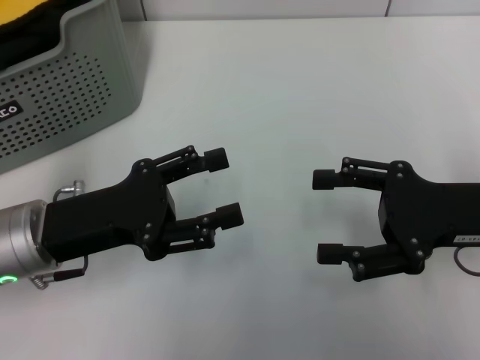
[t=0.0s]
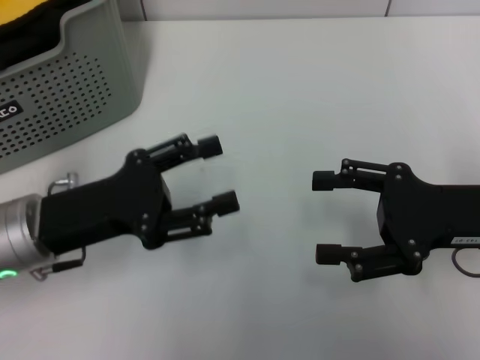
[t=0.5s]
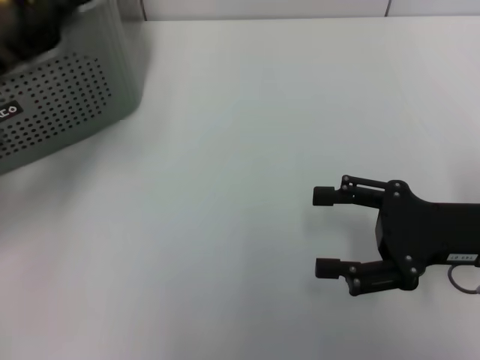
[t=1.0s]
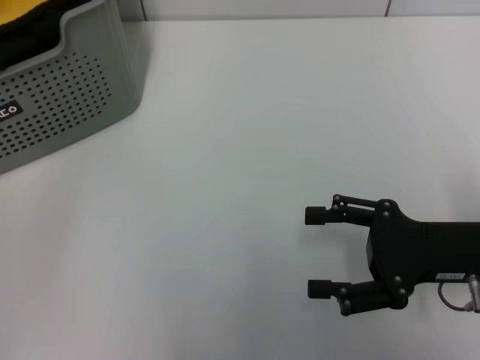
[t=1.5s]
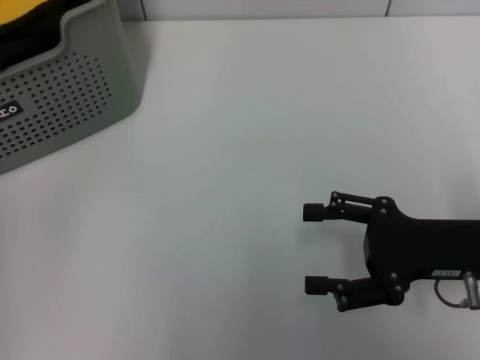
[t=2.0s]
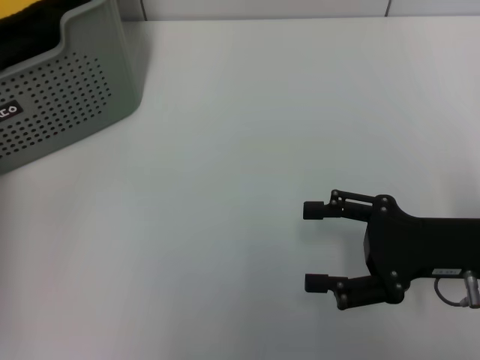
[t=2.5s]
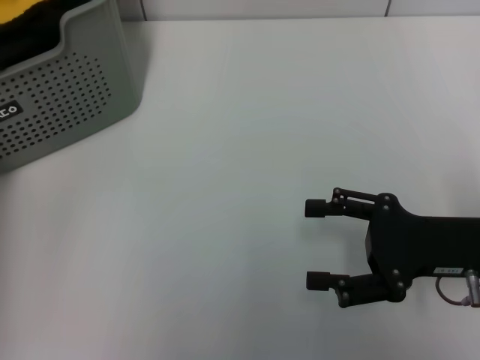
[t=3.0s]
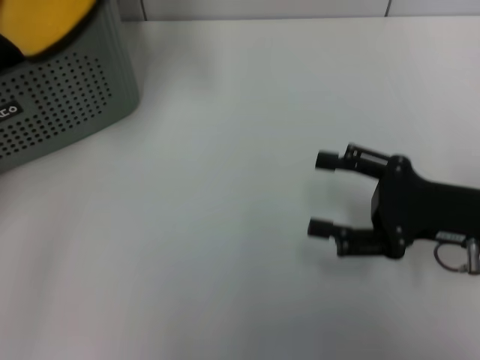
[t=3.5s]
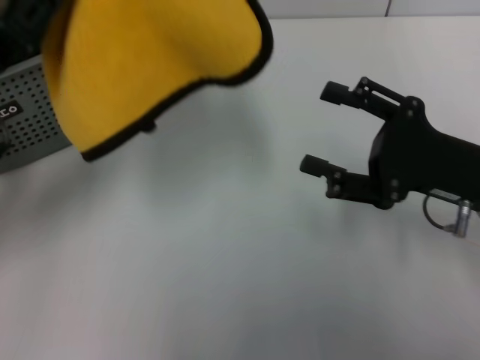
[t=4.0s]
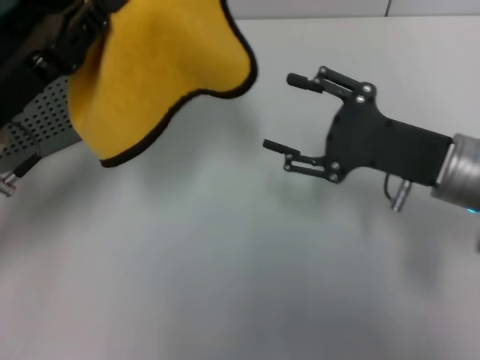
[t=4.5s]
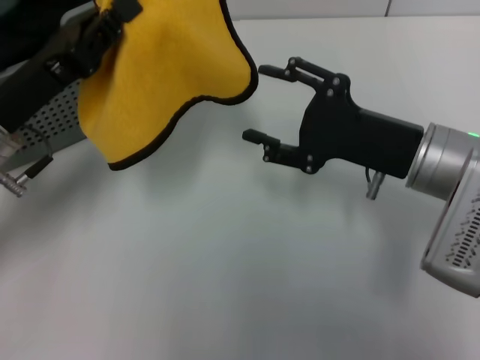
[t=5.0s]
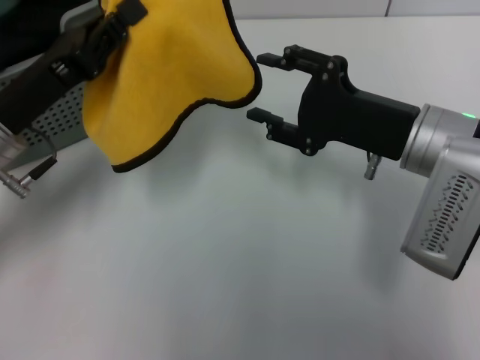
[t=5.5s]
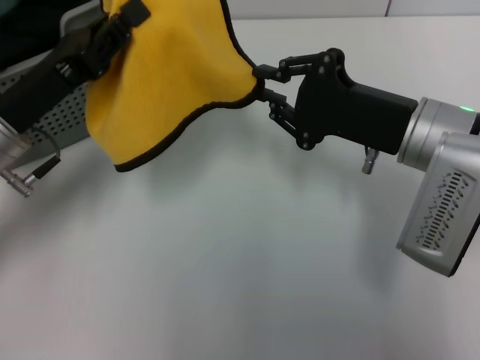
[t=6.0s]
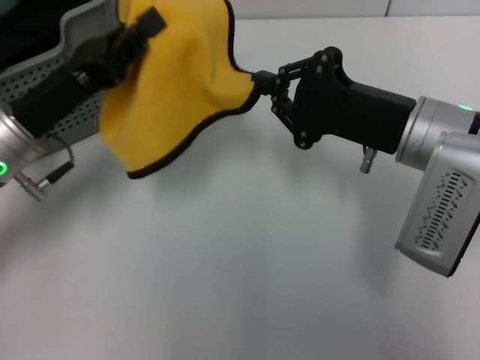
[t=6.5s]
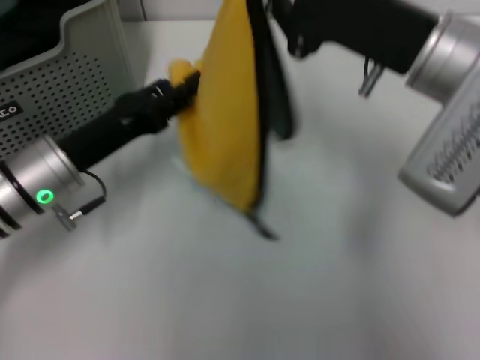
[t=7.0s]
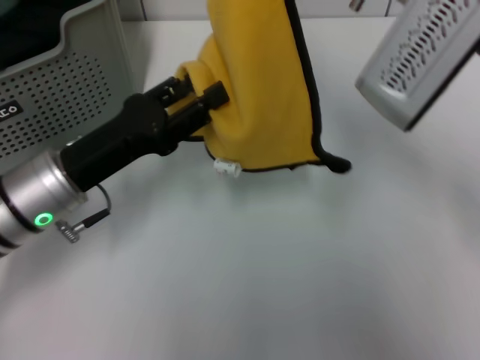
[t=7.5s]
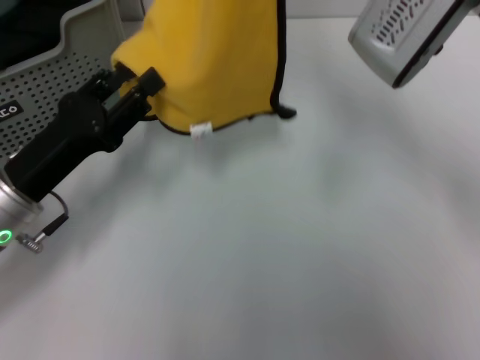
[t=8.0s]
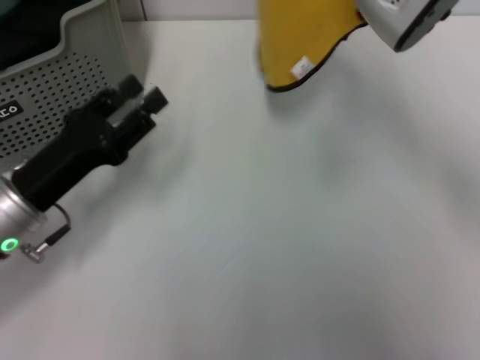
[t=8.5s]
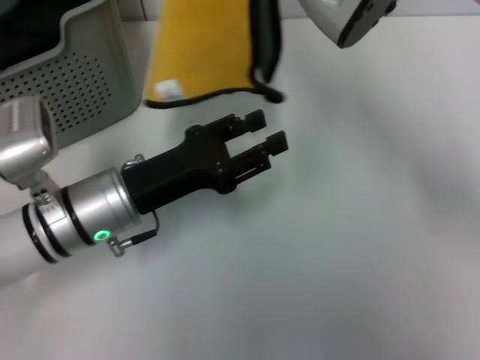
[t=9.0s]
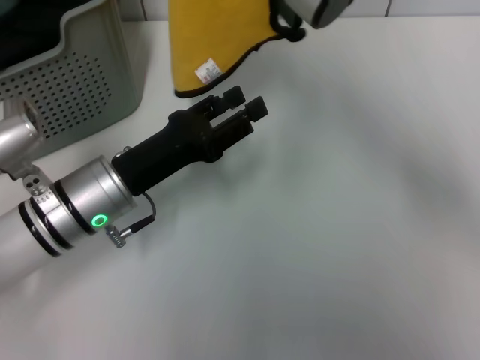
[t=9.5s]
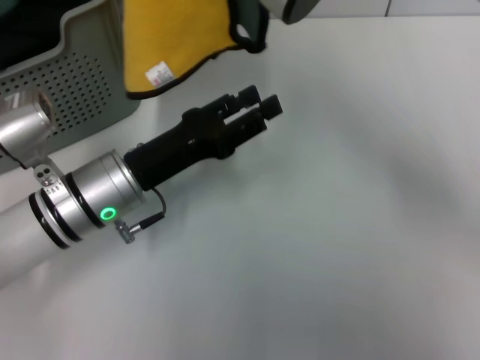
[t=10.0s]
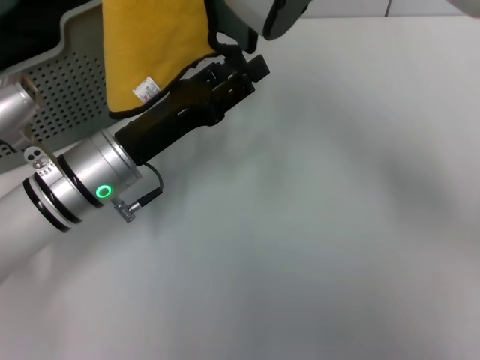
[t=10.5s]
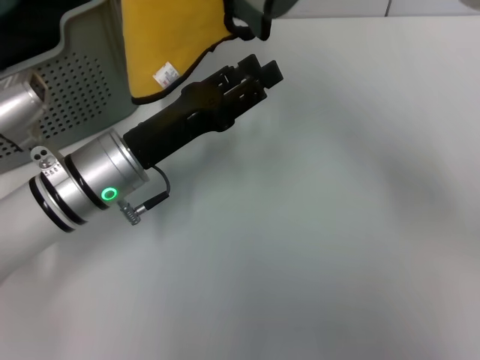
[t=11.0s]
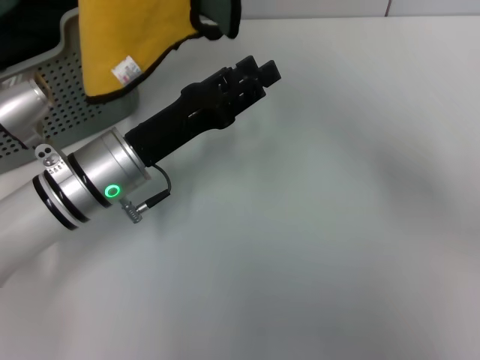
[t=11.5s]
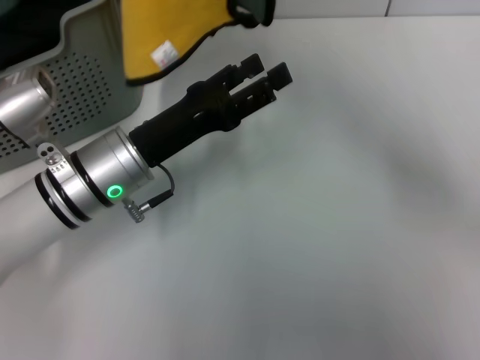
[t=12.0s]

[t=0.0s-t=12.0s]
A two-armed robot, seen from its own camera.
Task of the whole recording: pick up the towel from the storage box and lay it flat on the table.
Step, t=0.0s to t=3.0s: Pick up a towel with the left gripper.
Step, t=3.5s to t=6.0s: Spread the towel flat with the left gripper.
t=0.0s to t=2.0s: The left gripper is displaced forward, to the left and upward by some 20 cm.
t=2.0s to t=4.0s: The left gripper shifts some 15 cm backward and to the right, and closes its fingers.
t=4.0s to t=6.0s: The left gripper changes place by approximately 5 cm. Meanwhile the right gripper shifts roughly 5 cm to the left, and closes up.
t=6.0s to t=8.0s: The right gripper travels upward by approximately 10 cm. The left gripper ends up roughly 5 cm from where it was, and opens its fingers.
t=8.0s to t=10.0s: The left gripper travels to the right by about 10 cm. The right gripper moves to the left, some 5 cm.
t=10.0s to t=12.0s: The grippers move only a little.

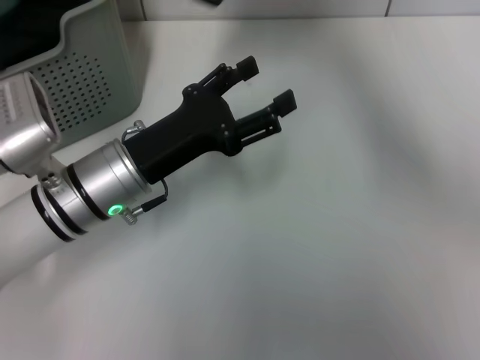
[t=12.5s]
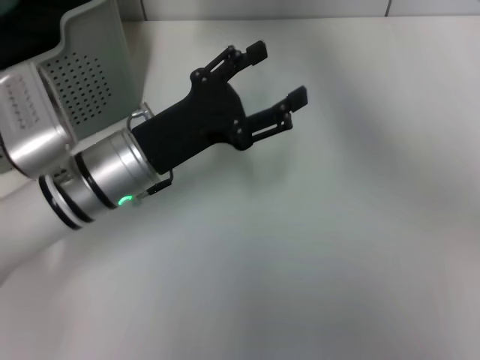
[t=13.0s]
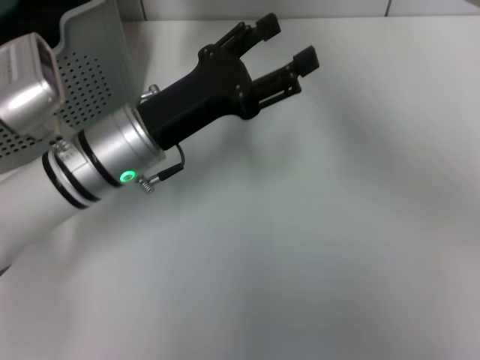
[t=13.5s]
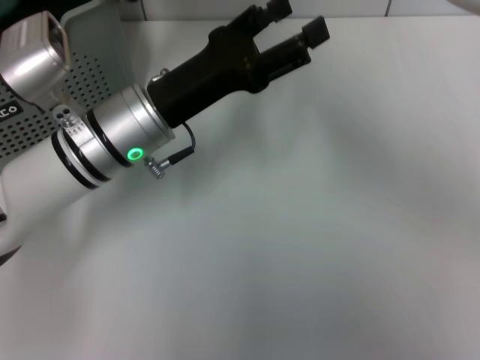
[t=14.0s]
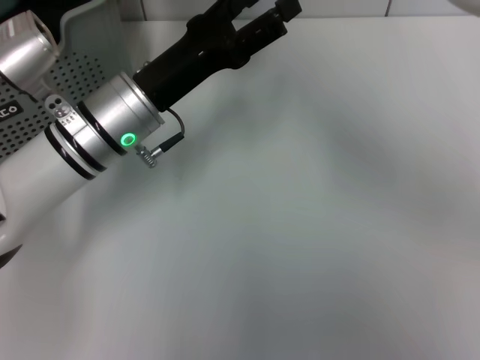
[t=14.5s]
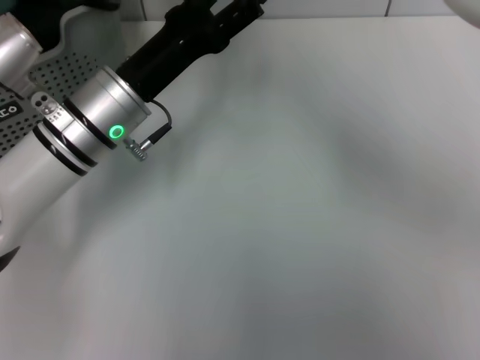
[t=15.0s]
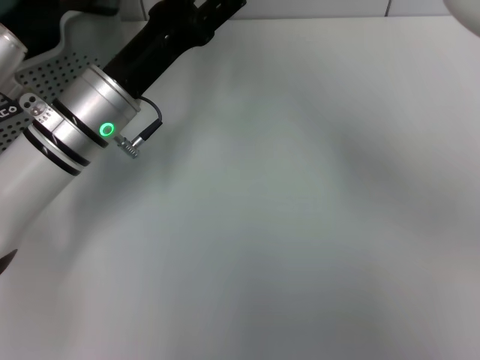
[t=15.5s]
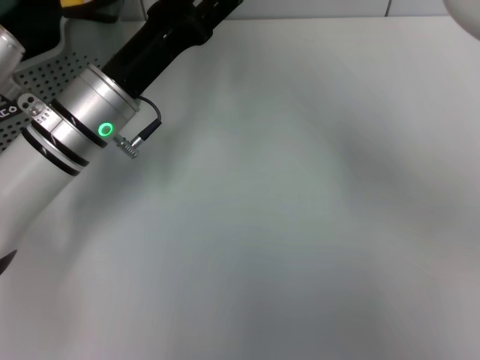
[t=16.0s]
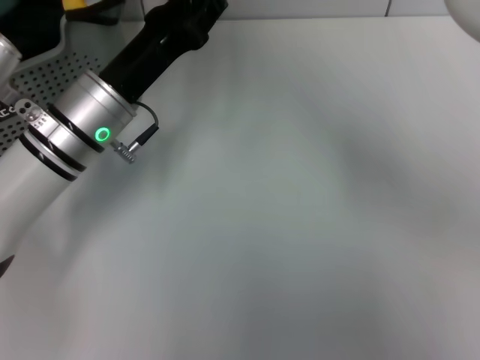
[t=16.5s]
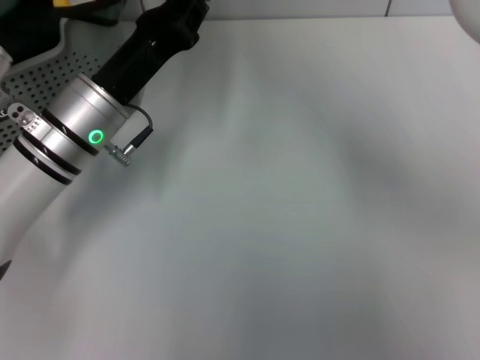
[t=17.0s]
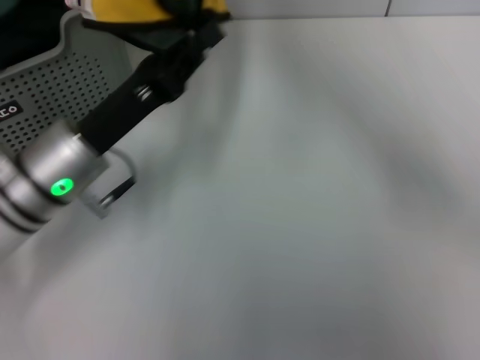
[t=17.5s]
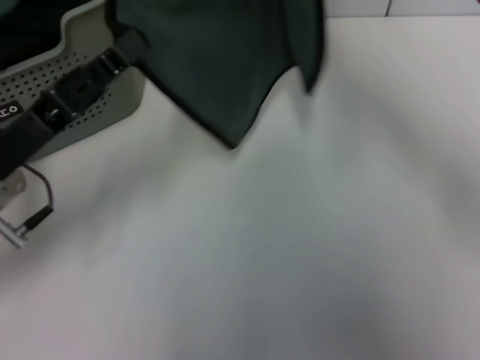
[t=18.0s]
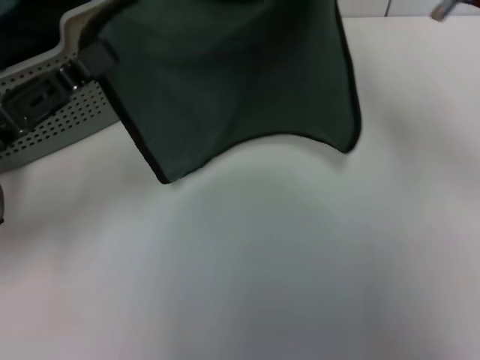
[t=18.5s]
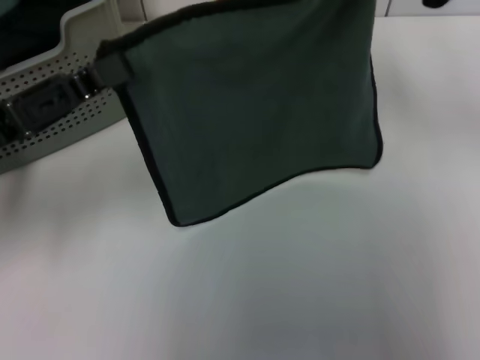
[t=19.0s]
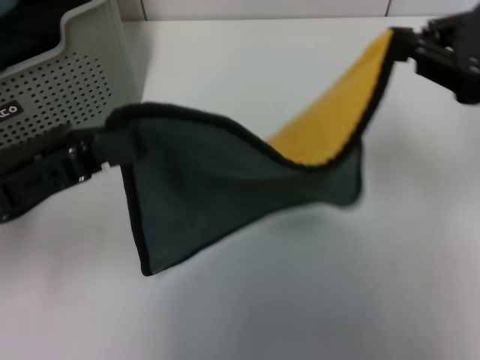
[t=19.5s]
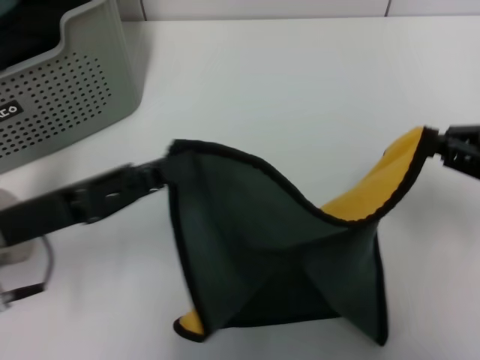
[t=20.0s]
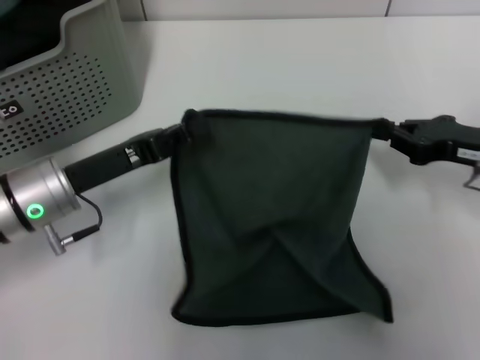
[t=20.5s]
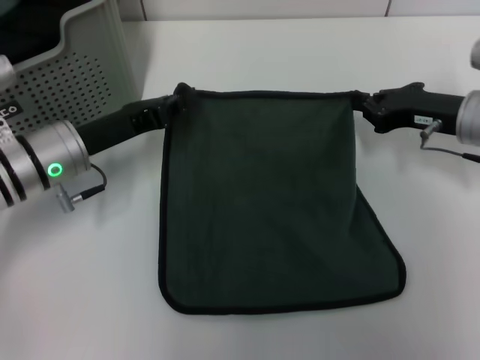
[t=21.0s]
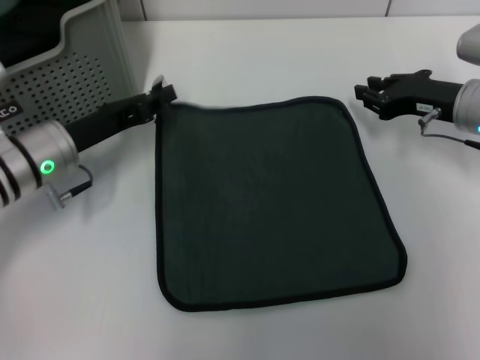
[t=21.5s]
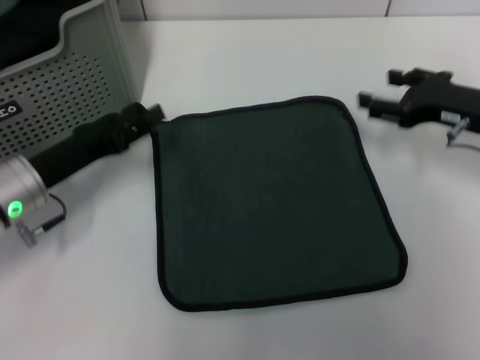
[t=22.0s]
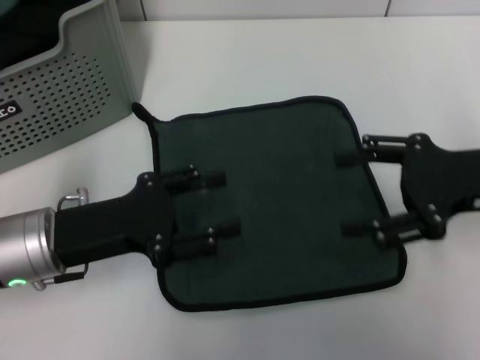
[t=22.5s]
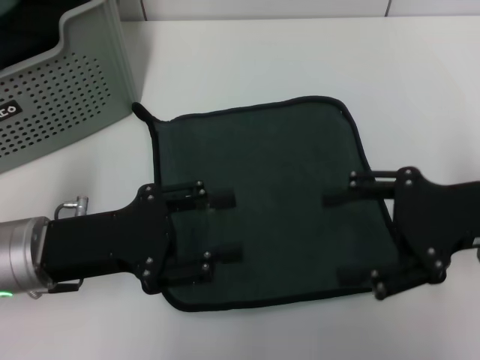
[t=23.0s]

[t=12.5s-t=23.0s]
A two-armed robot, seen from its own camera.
Task of the whole recording: pick up the towel from the storage box and lay it flat on the table.
Step, t=12.5s to t=21.5s: Spread the towel flat with the right gripper.
t=12.5s to t=14.5s: The right gripper moves to the left, about 5 cm. Meanwhile the left gripper changes place by roughly 5 cm.
t=14.5s to t=16.5s: The left gripper closes up.
t=16.5s to t=19.0s: The right gripper heads to the right and downward, covering some 25 cm; the left gripper goes approximately 15 cm to the left and backward, and closes up.
t=19.0s to t=21.0s: The right gripper travels downward by approximately 15 cm; the left gripper heads downward, forward and to the right, covering some 10 cm.
t=21.0s to t=23.0s: The right gripper travels backward and upward by approximately 10 cm, and opens. The left gripper moves backward, some 10 cm, and opens.
